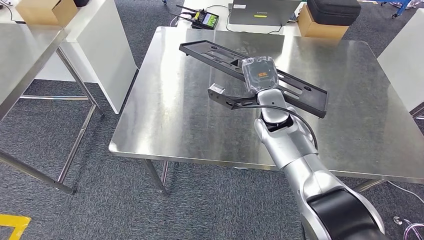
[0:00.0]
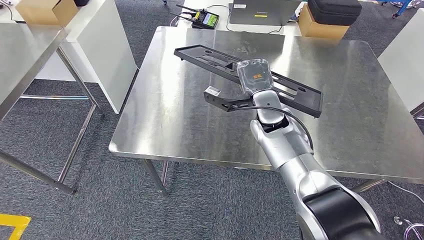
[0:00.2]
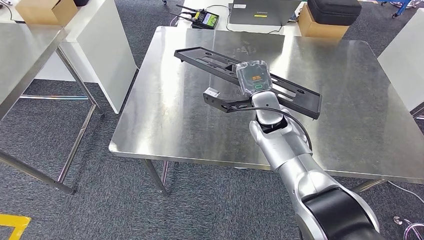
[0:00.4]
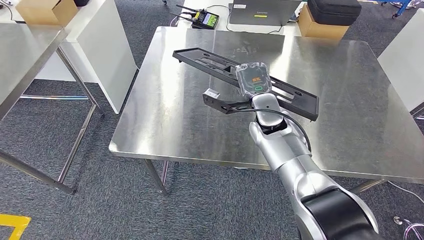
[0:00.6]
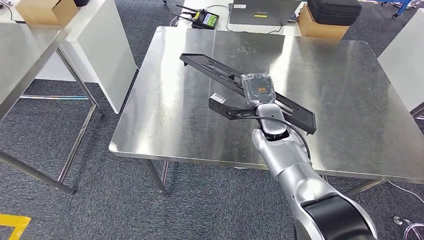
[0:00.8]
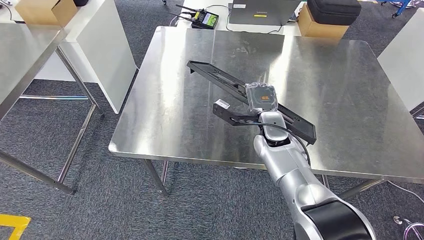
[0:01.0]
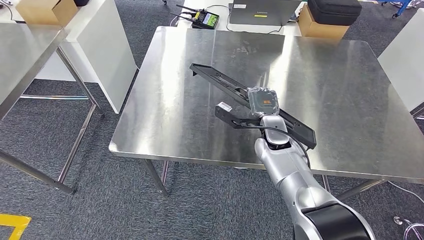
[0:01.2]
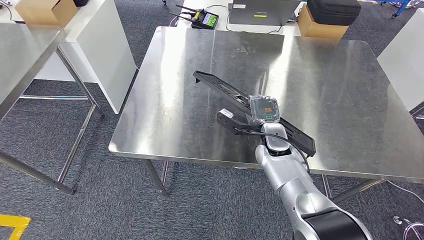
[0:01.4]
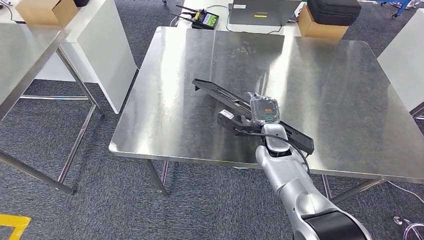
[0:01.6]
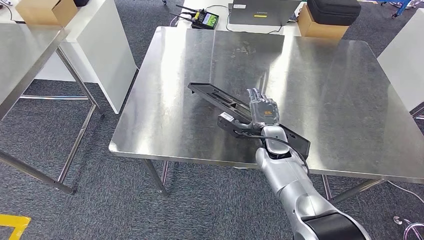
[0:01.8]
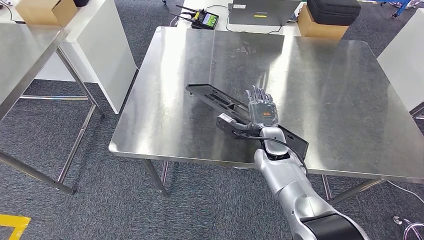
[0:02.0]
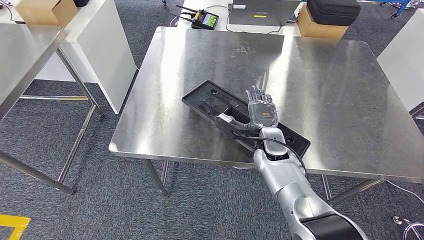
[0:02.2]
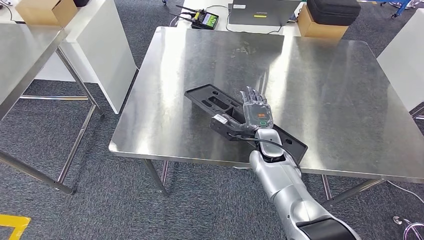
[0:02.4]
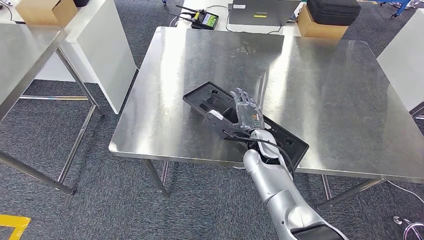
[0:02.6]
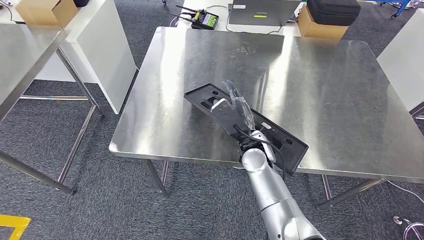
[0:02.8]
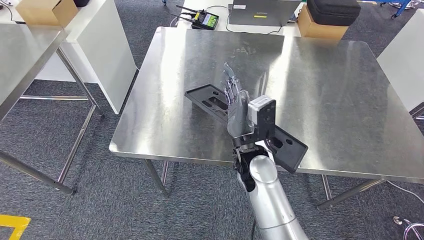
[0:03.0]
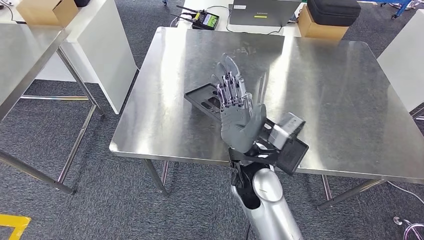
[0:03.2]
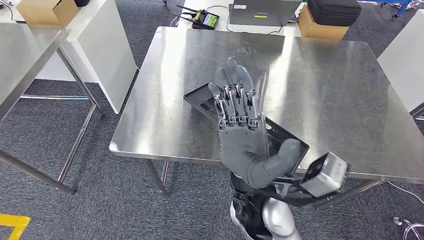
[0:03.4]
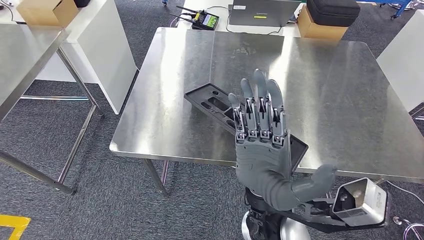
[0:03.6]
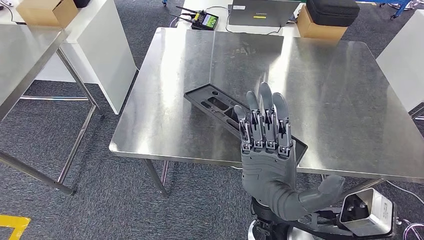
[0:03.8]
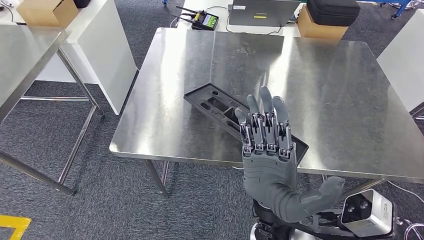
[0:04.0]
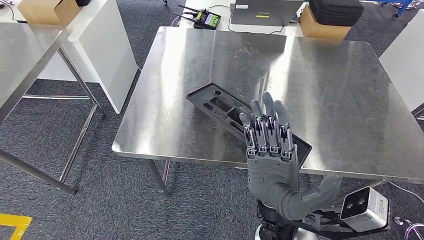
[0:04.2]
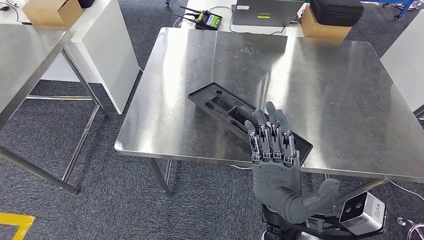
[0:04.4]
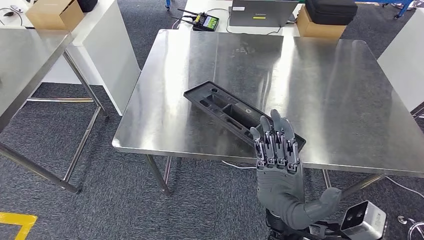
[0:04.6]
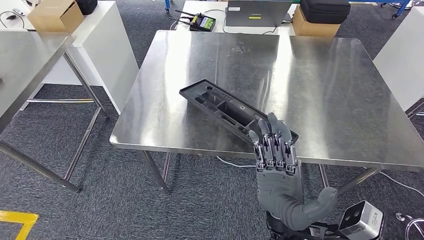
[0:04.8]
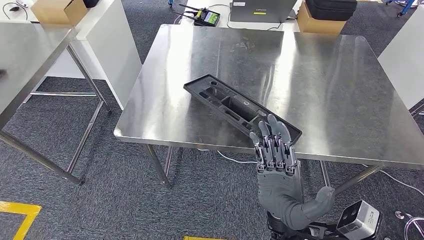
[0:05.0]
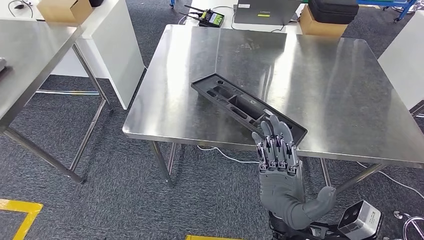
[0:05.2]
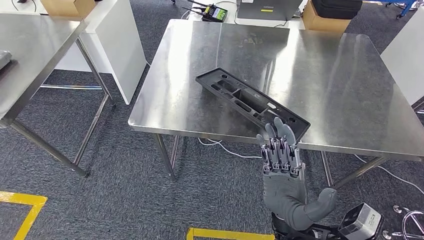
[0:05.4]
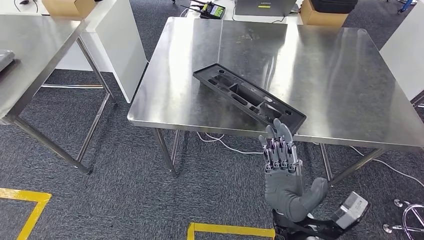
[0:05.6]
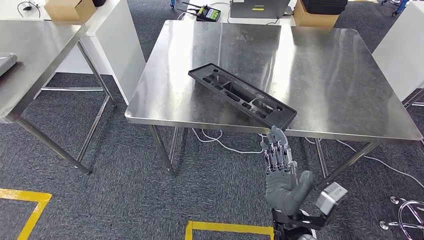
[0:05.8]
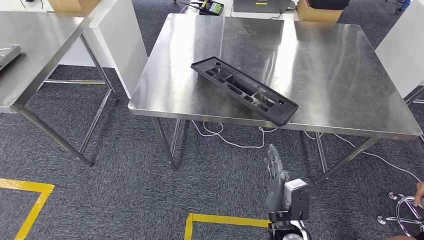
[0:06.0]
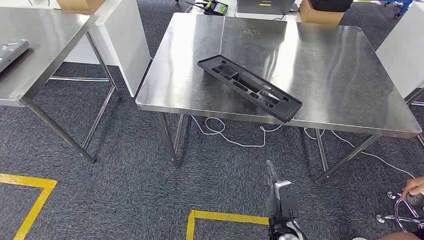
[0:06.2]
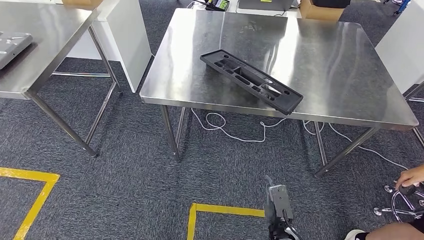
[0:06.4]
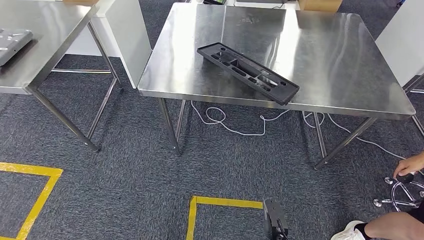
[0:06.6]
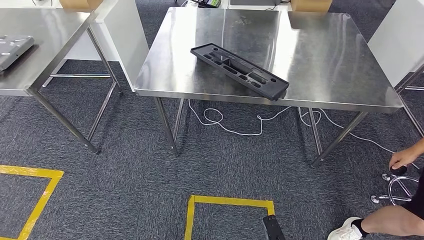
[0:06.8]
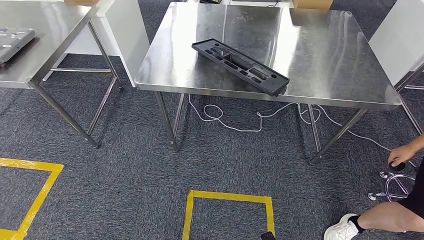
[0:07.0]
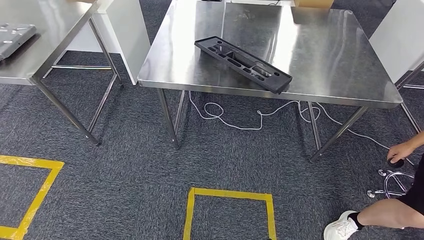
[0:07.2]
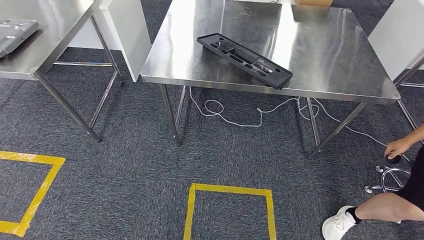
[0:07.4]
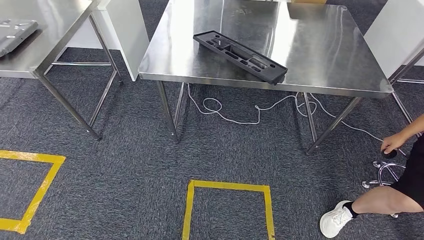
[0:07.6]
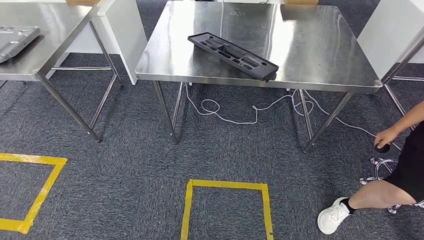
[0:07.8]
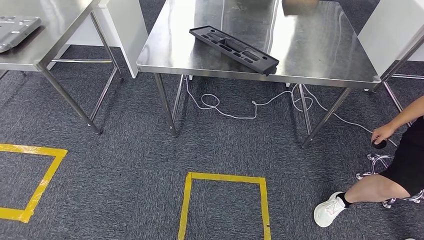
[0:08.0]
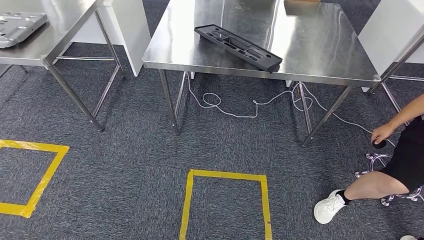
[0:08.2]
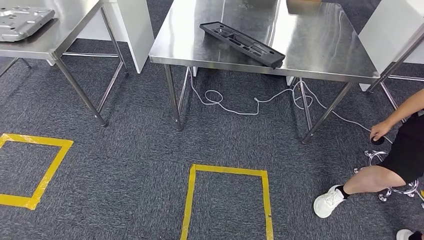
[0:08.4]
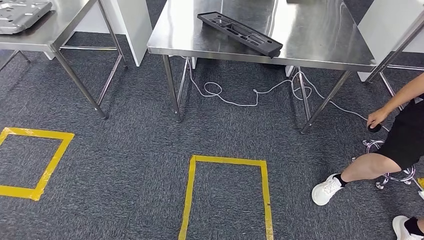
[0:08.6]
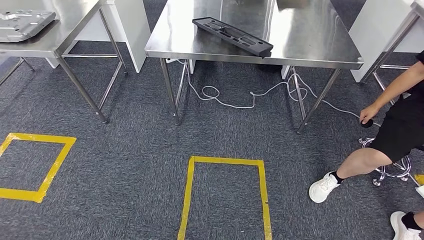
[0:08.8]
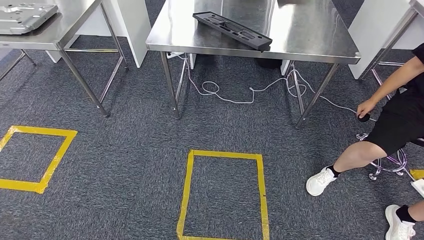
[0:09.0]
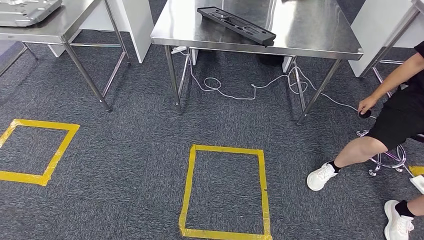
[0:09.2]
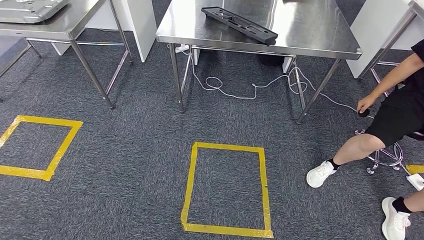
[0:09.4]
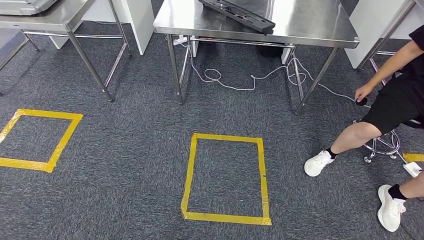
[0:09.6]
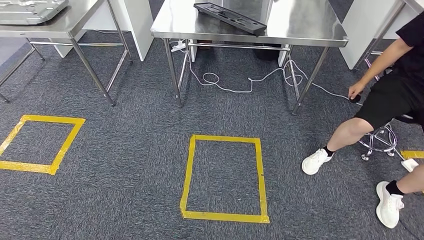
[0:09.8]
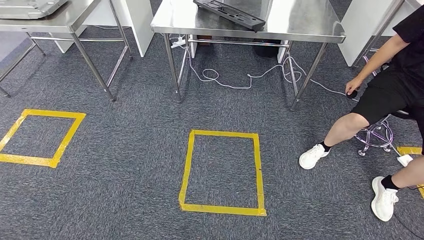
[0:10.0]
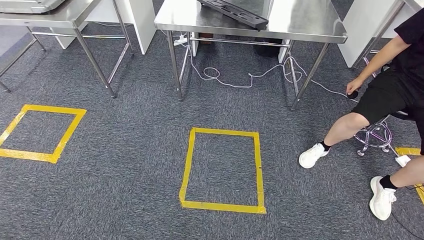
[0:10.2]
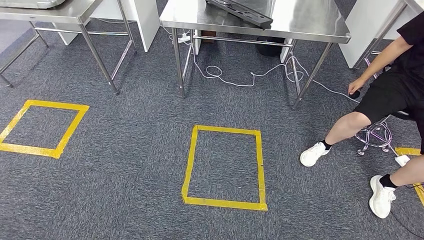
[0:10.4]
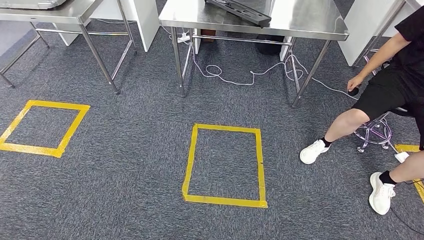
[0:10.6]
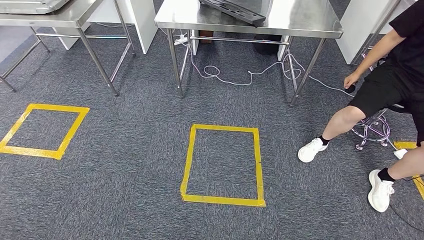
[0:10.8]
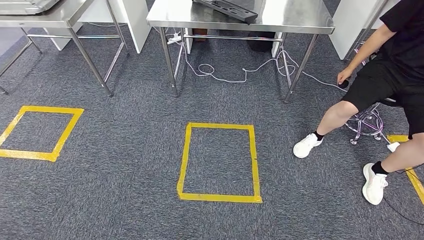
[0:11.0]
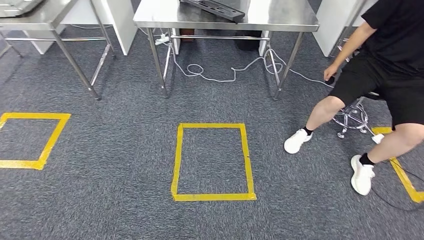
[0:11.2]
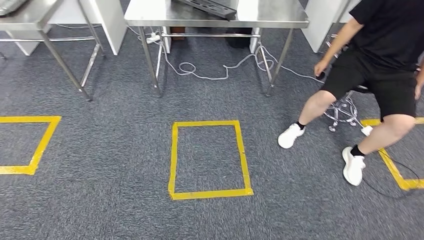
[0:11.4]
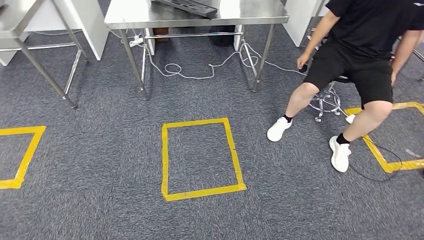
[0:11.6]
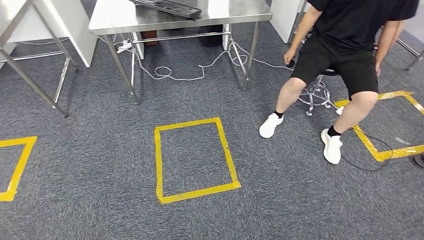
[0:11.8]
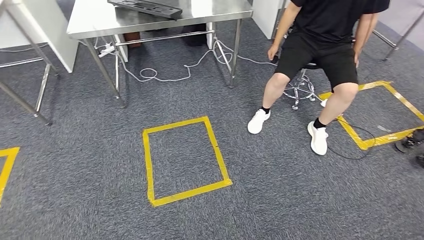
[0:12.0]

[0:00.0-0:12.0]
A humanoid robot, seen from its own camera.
Step, 0:00.0 to 0:07.4: Insert the large material into the corresponding slot on the workbench.
0:00.0 to 0:01.6: The right hand travels downward by roughly 10 cm.
0:01.6 to 0:03.0: The right hand heads backward, to the left and upward, covering some 15 cm.

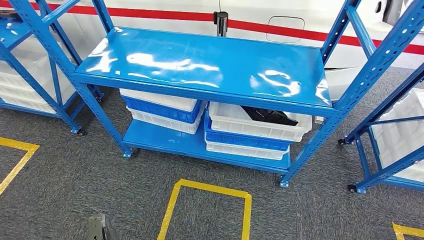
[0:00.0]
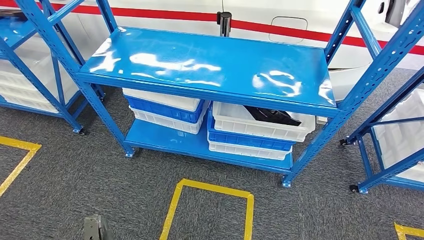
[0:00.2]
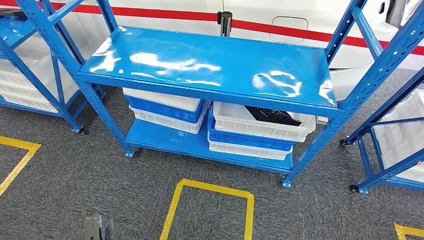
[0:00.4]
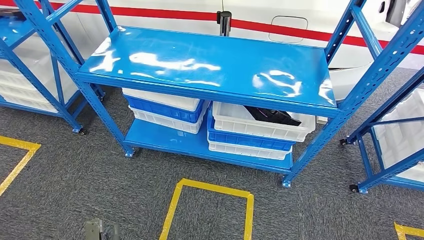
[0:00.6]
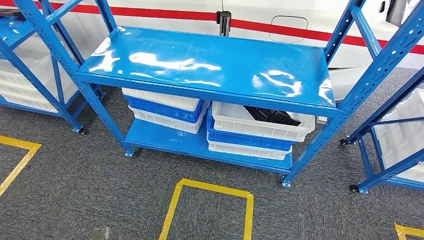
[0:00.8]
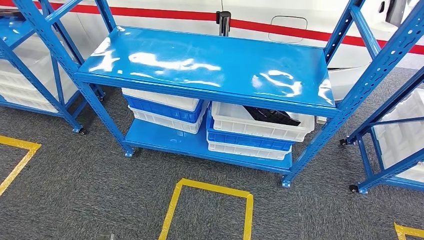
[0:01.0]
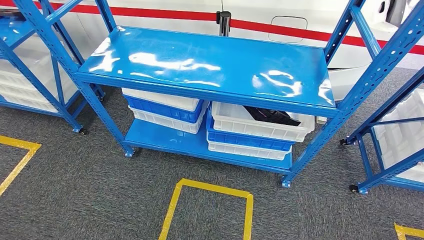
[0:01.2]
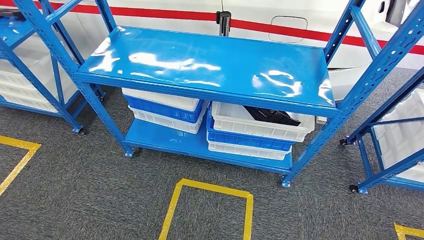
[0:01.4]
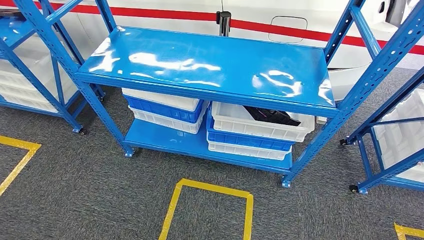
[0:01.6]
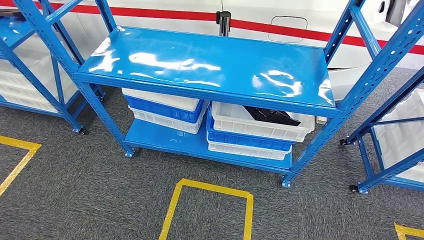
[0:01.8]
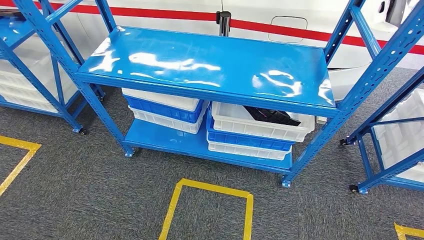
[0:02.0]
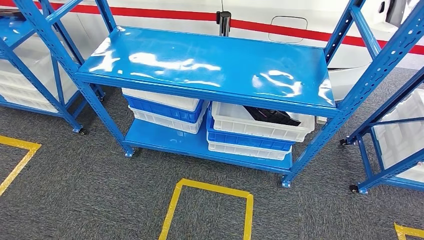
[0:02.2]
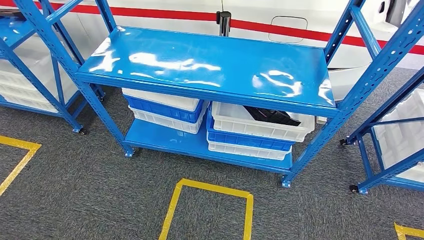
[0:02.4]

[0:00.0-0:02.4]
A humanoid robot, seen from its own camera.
Step, 0:00.0 to 0:02.4: Return to the initial position at the shelf.
0:00.0 to 0:01.2: The left hand moves backward, some 5 cm.
